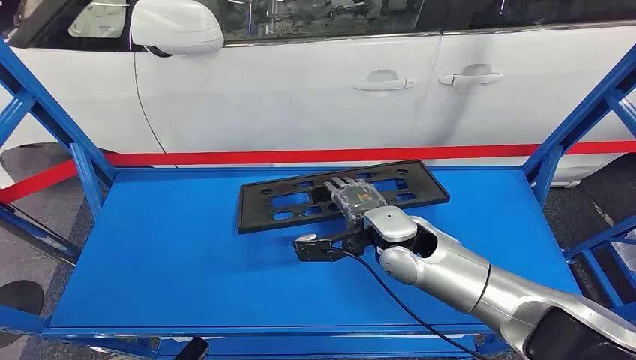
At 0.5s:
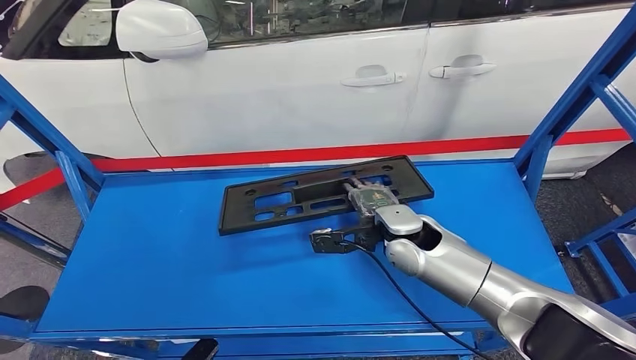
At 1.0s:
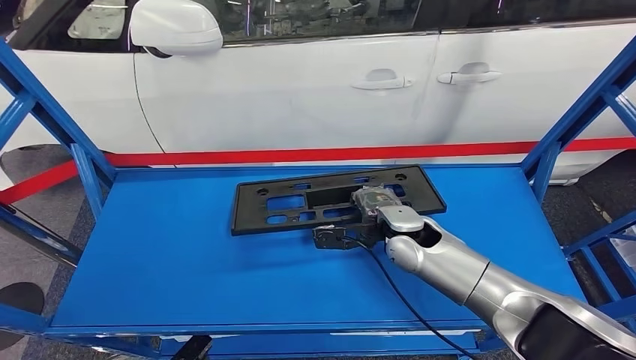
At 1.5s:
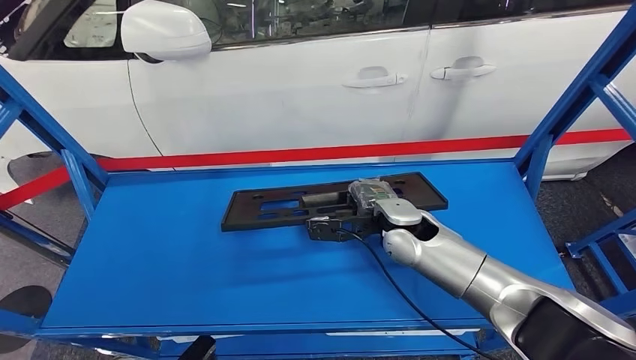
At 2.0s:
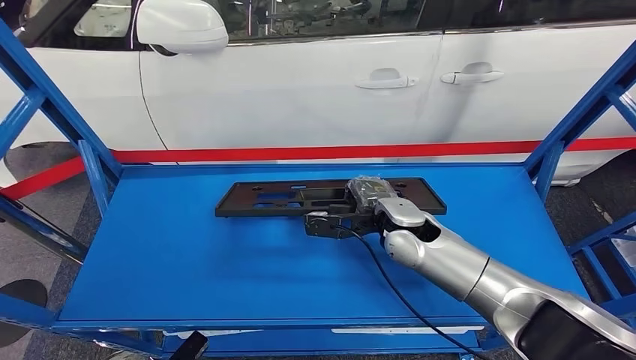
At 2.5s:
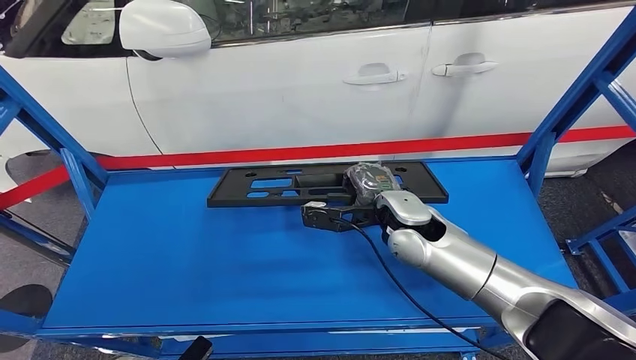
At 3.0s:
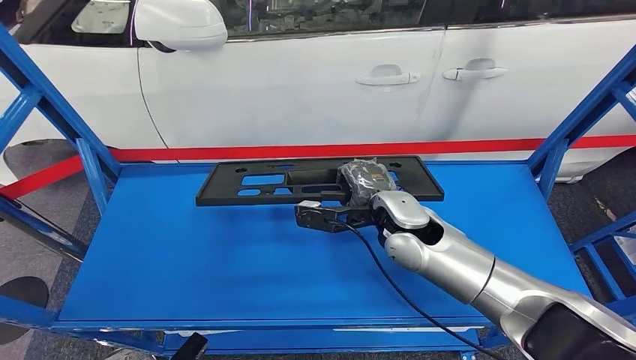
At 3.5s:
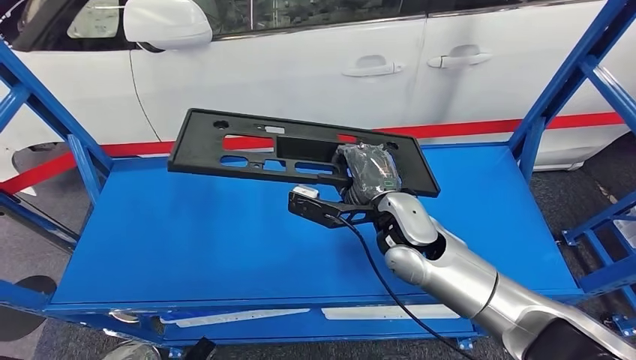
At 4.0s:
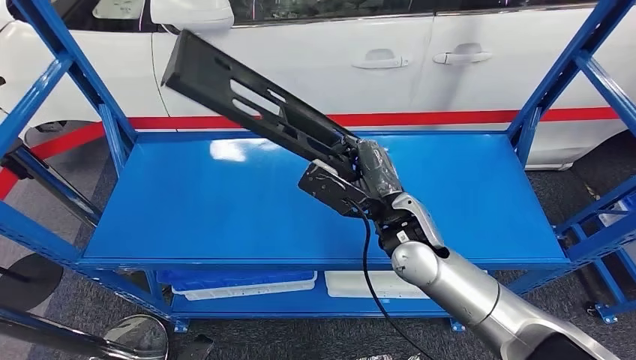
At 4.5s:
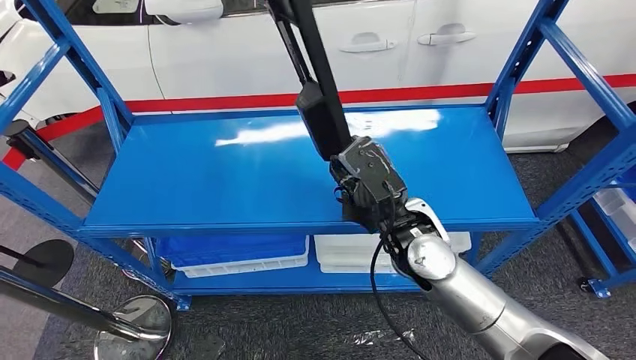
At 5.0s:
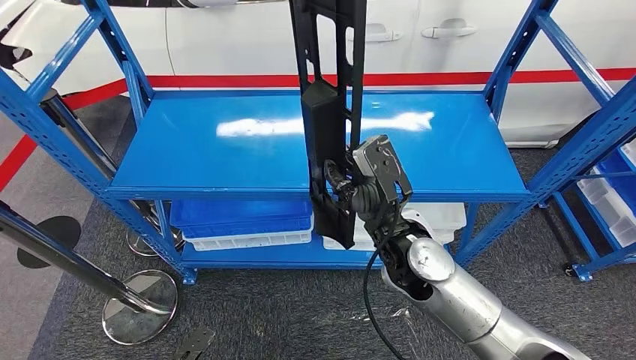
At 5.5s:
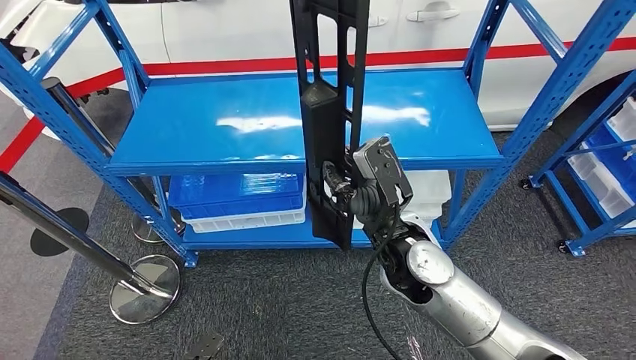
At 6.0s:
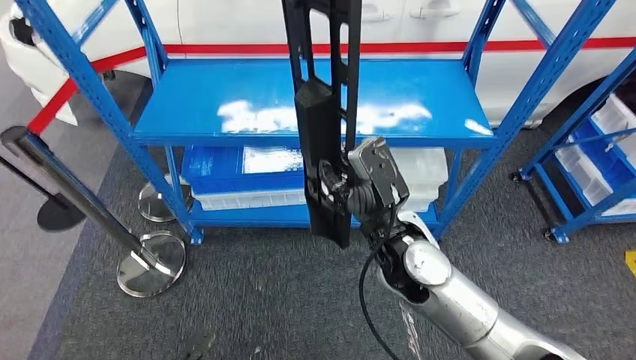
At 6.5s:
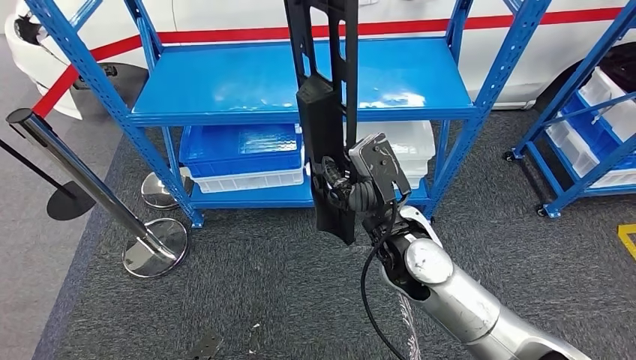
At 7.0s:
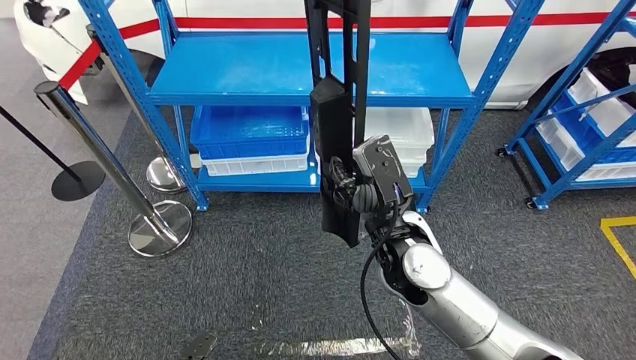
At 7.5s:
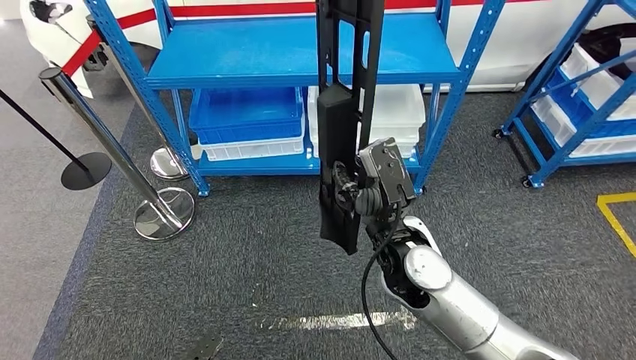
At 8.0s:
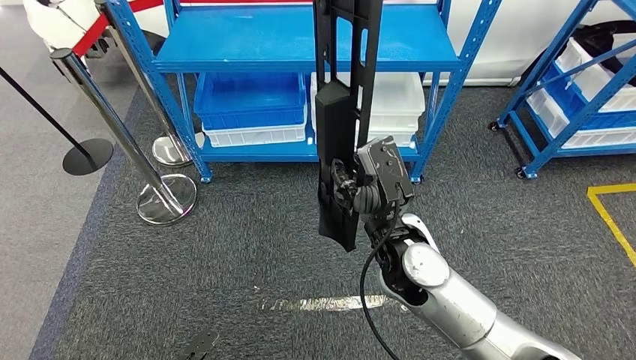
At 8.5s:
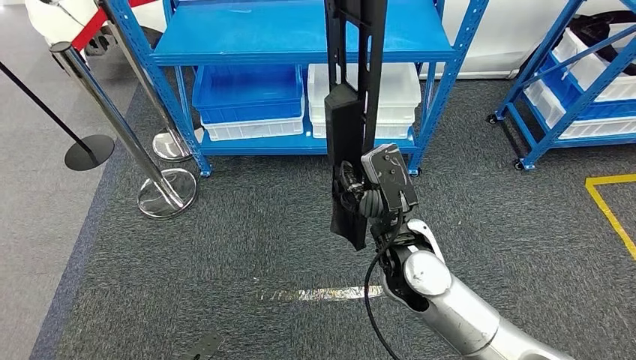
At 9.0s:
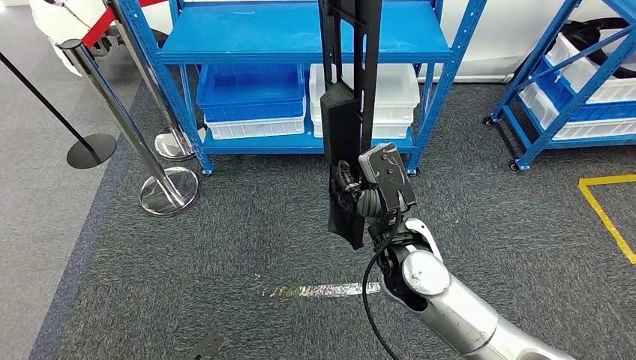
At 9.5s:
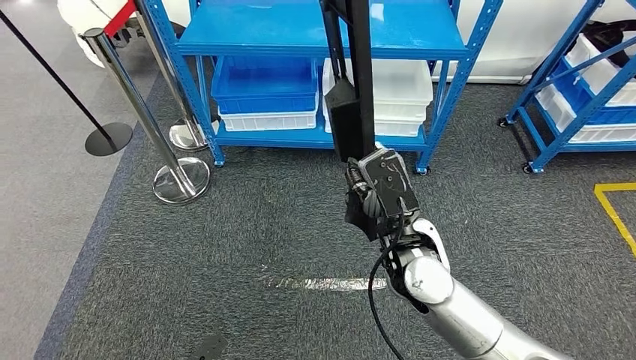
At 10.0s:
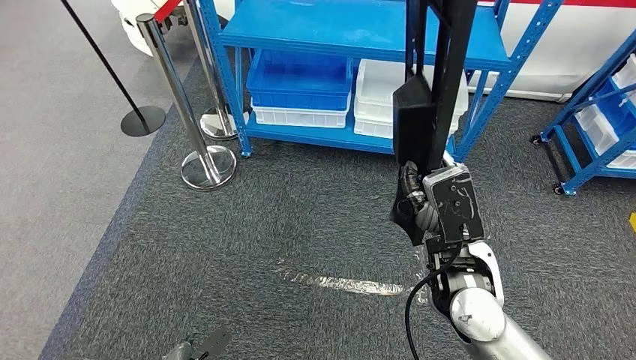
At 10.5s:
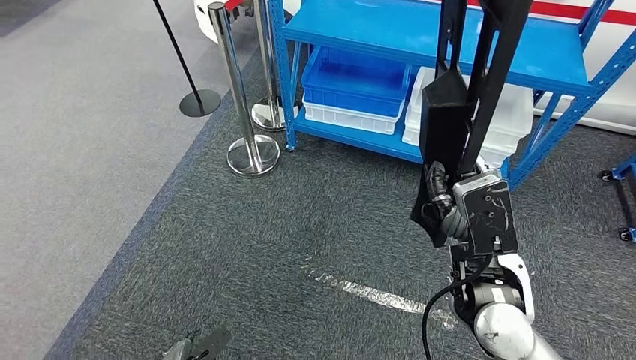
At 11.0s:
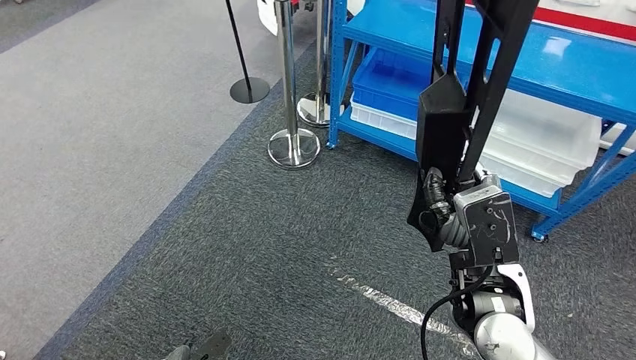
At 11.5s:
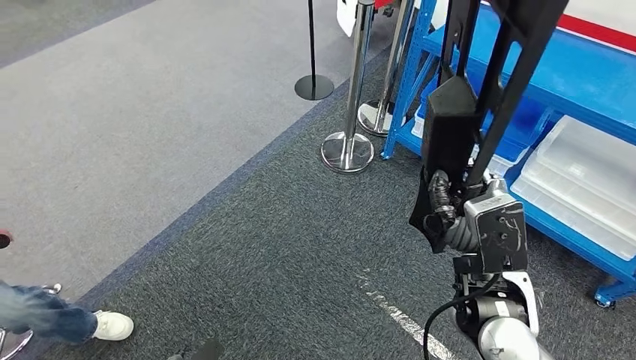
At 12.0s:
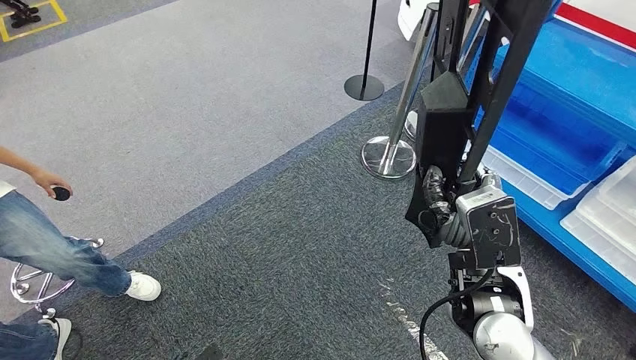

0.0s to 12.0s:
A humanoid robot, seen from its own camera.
Step, 0.0s to 3.5s: Pick up the large material from the shelf.

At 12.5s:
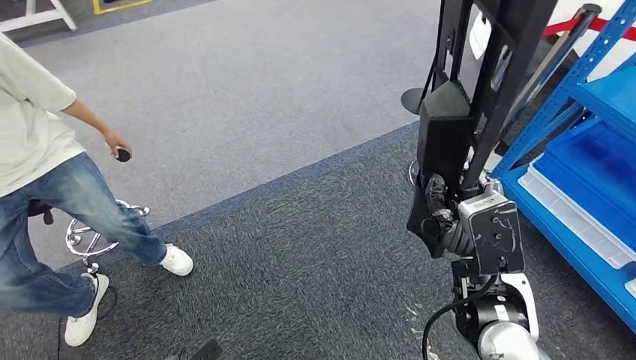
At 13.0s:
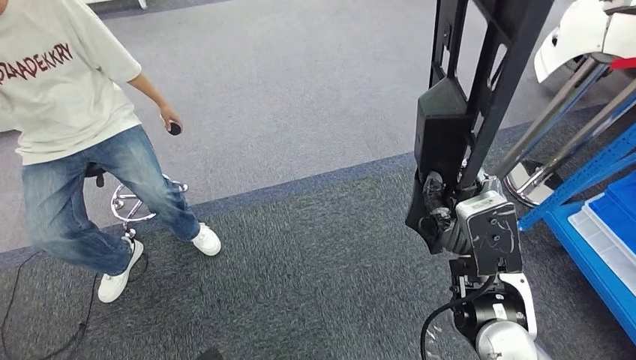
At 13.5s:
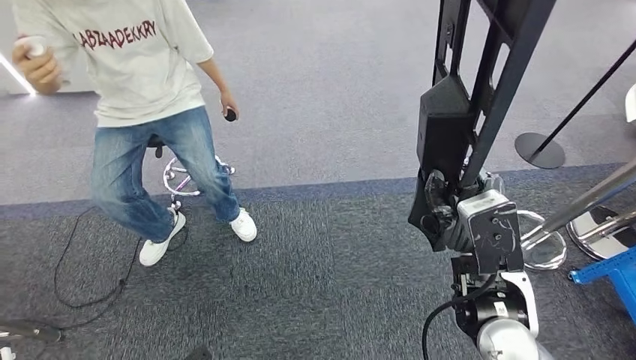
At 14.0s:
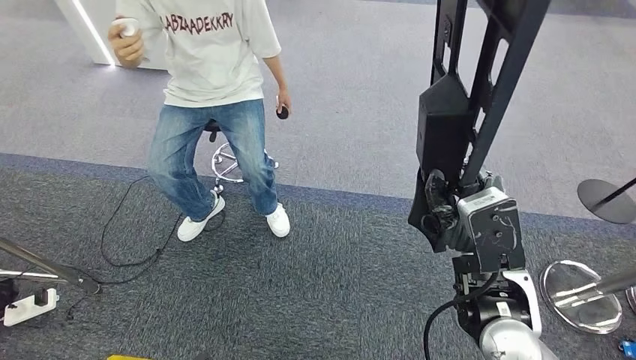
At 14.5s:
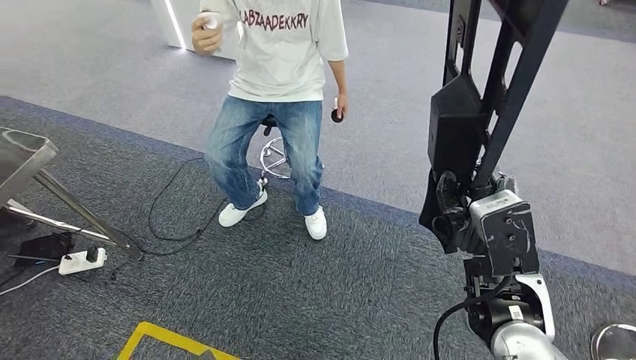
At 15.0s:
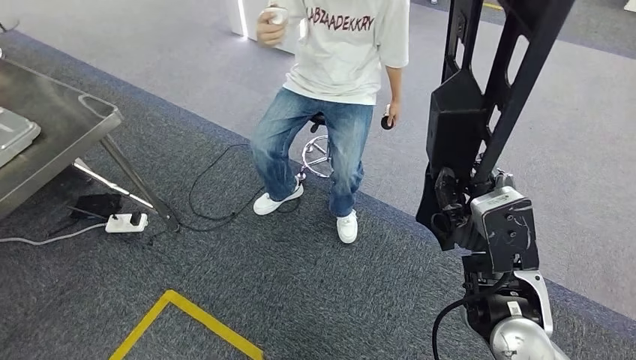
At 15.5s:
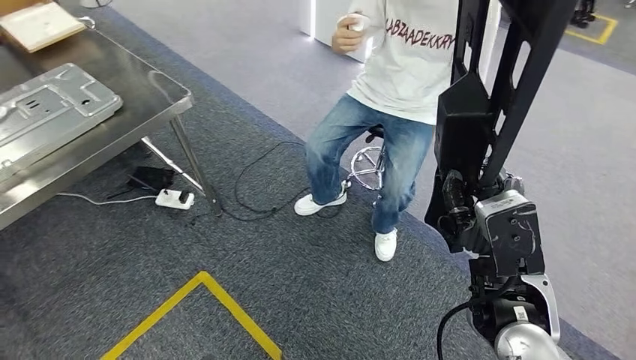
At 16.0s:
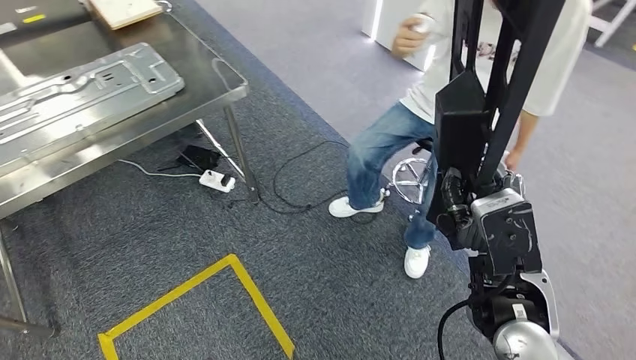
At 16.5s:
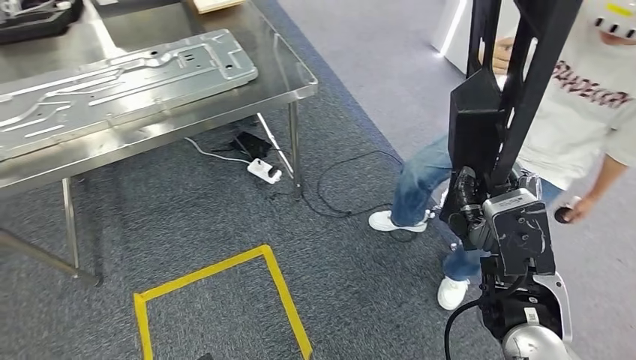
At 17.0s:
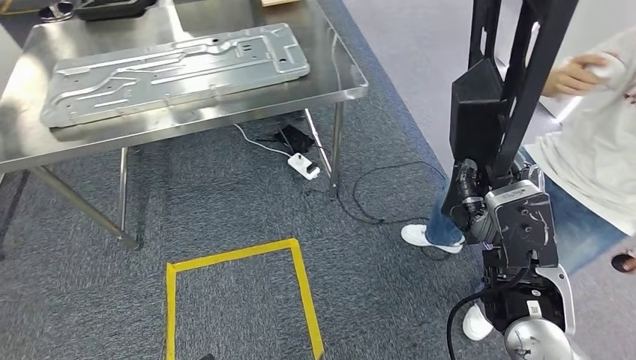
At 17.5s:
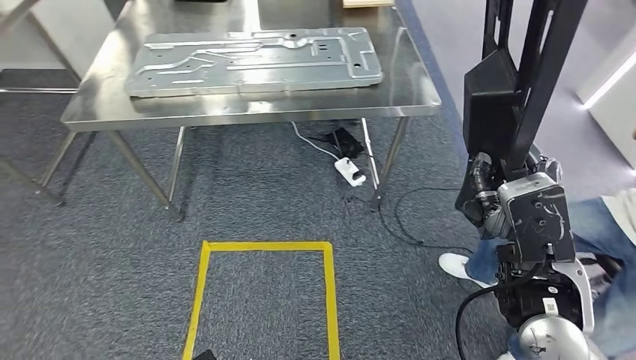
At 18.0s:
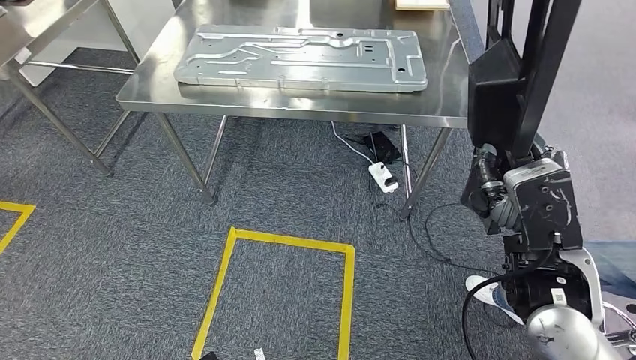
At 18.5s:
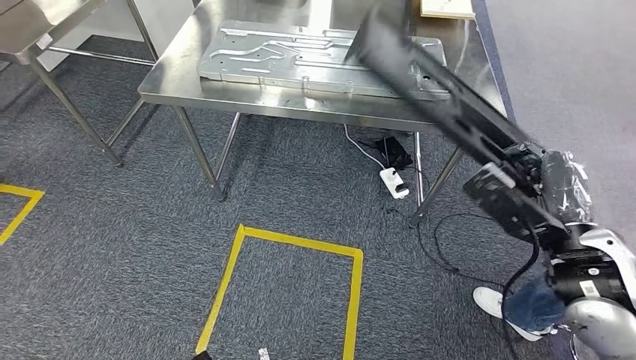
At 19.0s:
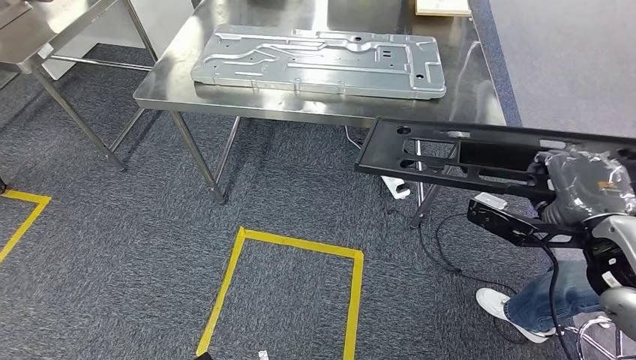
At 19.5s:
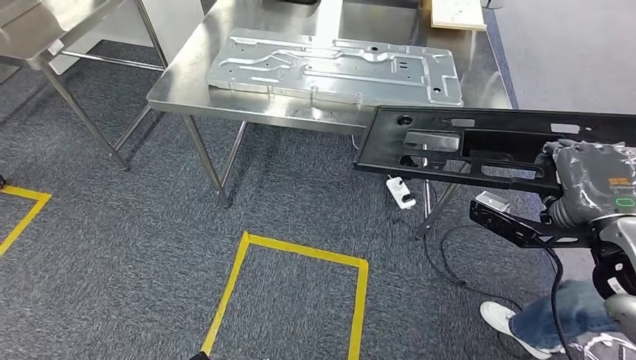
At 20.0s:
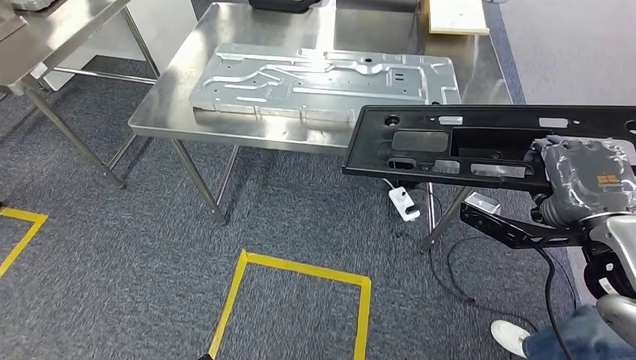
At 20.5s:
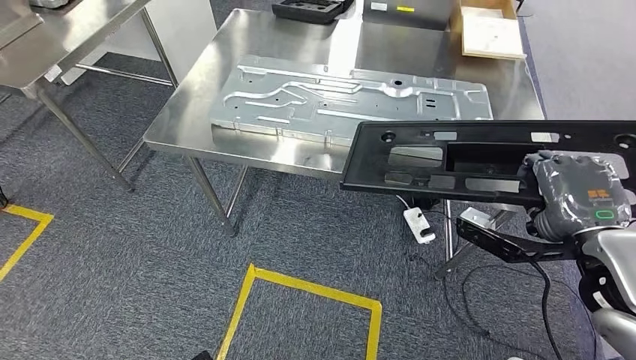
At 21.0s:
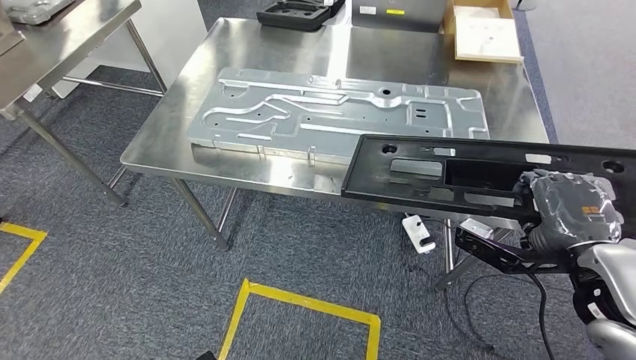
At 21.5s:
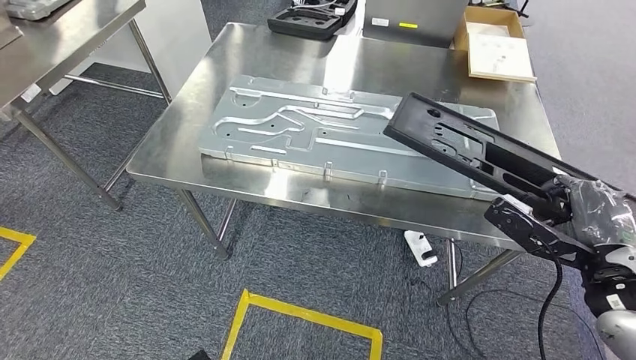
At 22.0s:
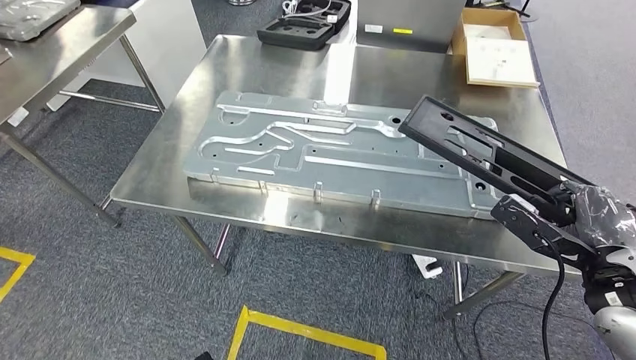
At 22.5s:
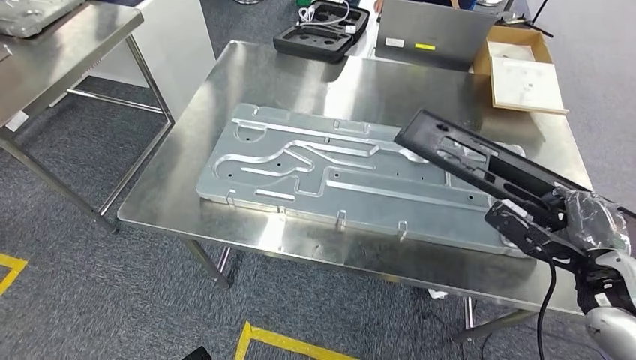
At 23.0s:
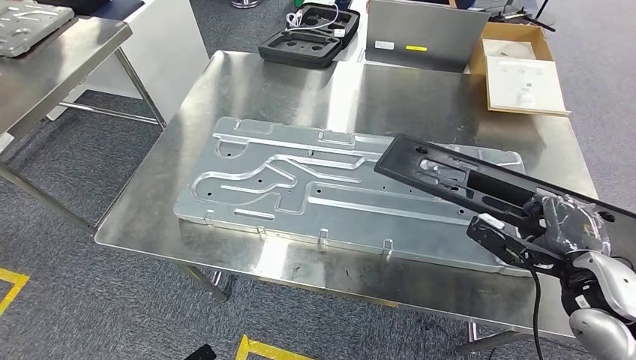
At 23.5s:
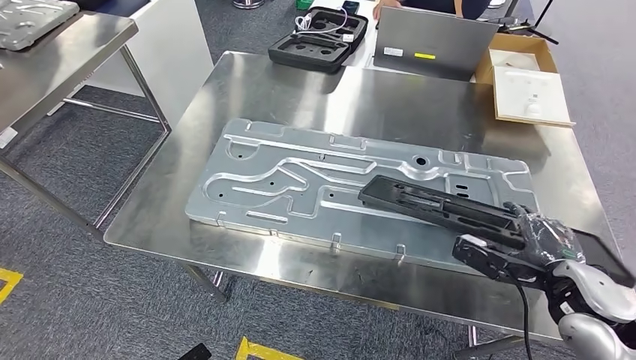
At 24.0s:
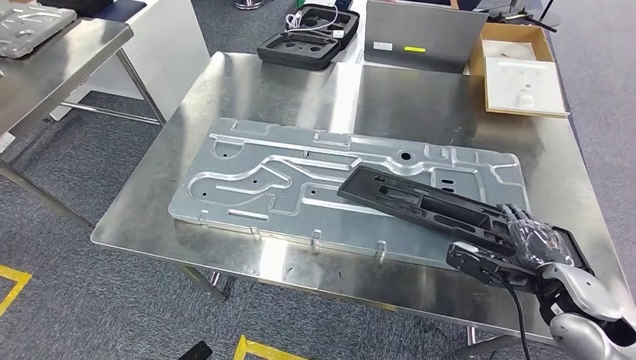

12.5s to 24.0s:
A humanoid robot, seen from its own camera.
Step, 12.5s to 20.0s: Move the large material to the front of the workbench.
